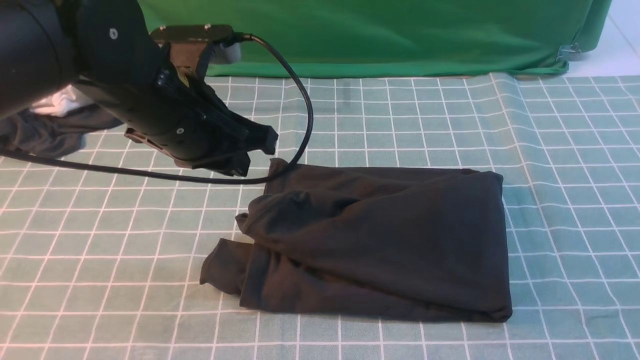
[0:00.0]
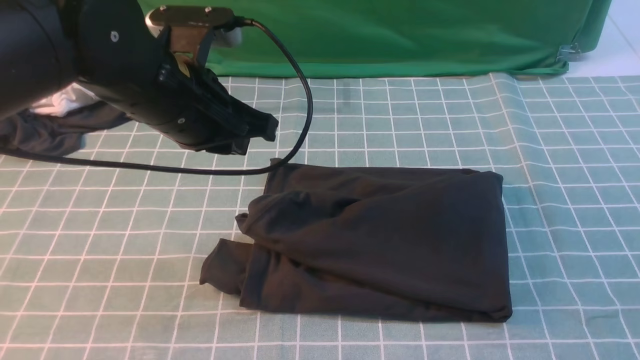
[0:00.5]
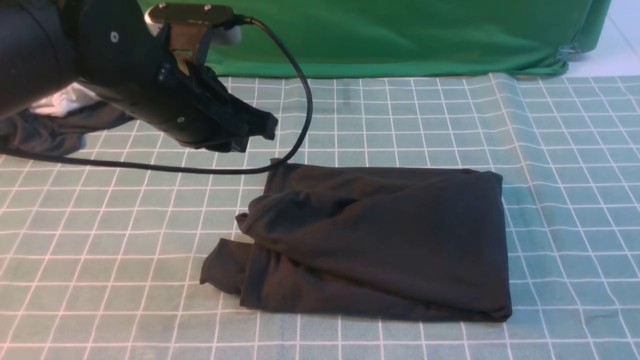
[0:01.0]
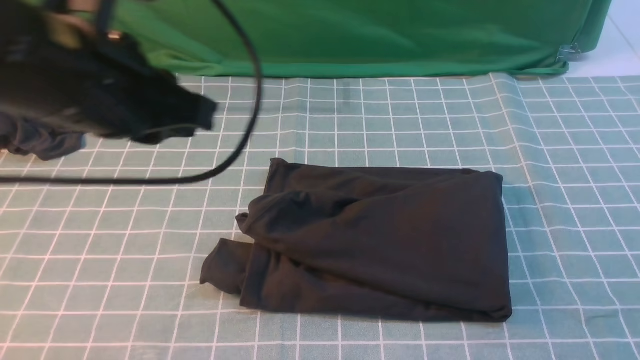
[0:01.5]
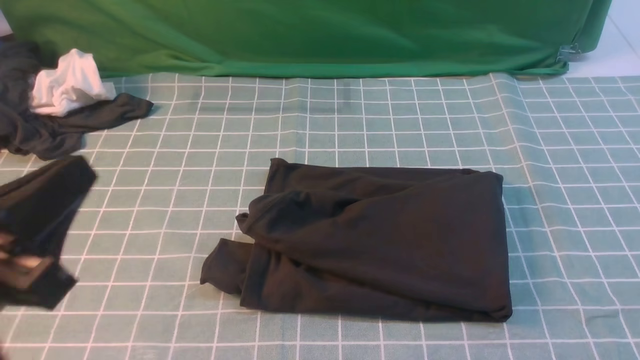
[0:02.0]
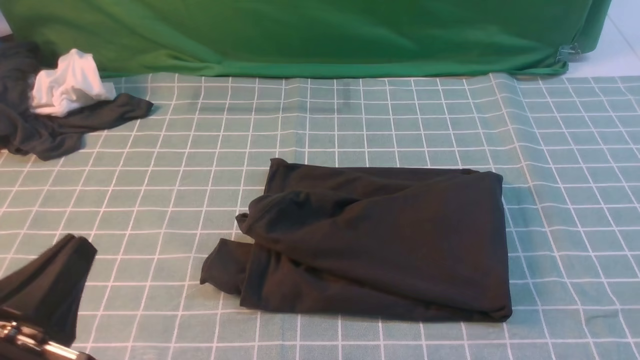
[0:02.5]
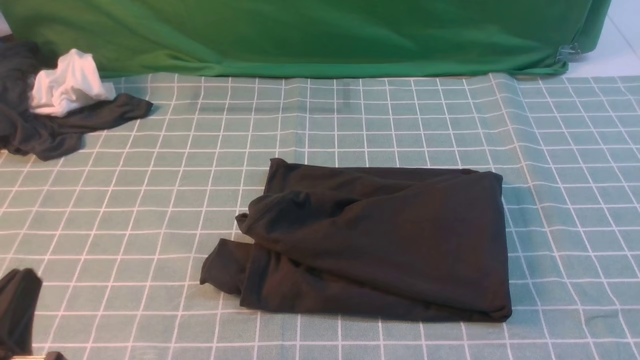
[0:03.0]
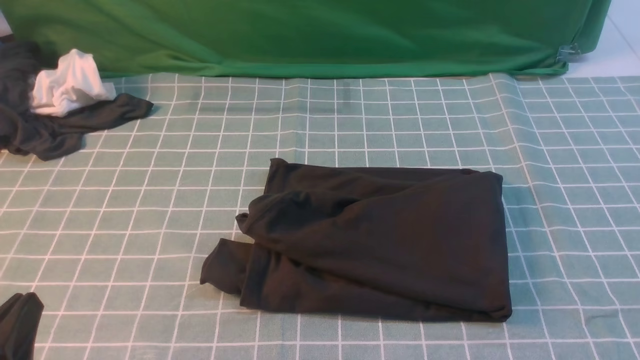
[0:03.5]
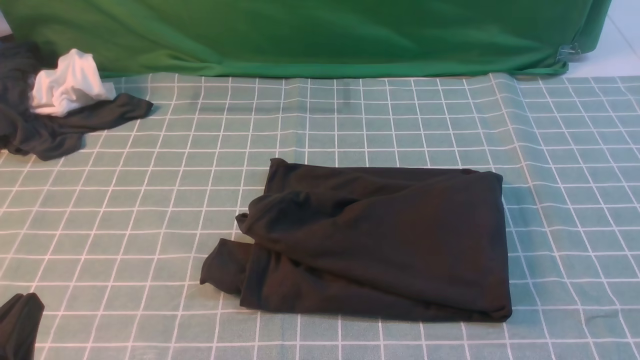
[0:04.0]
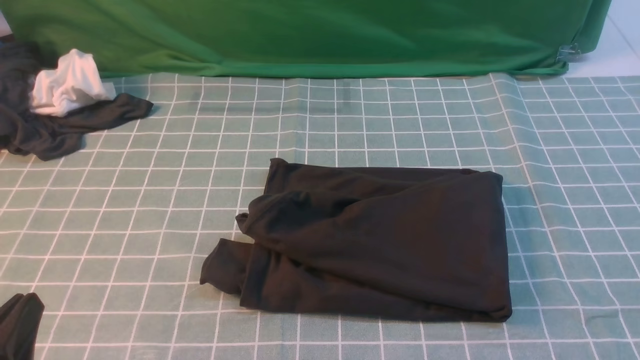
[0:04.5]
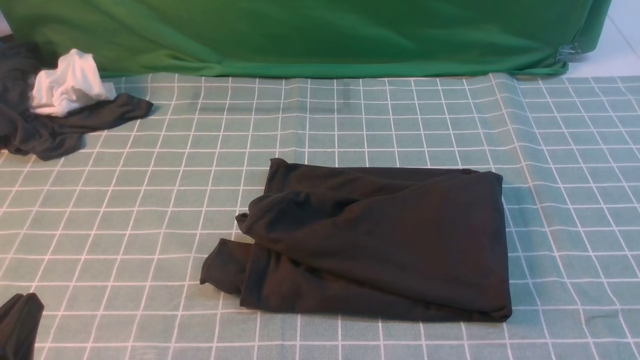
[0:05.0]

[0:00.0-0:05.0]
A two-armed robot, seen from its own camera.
0:00.0 to 0:02.5: The left gripper travels backward and to the left by about 25 cm. The right gripper shifts roughly 10 cm downward.

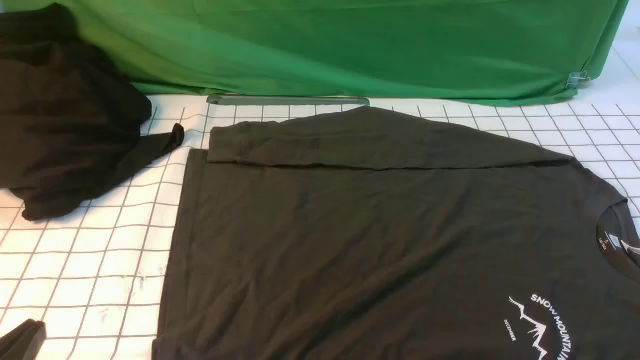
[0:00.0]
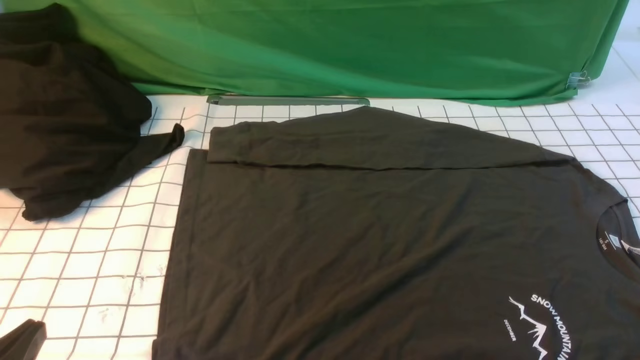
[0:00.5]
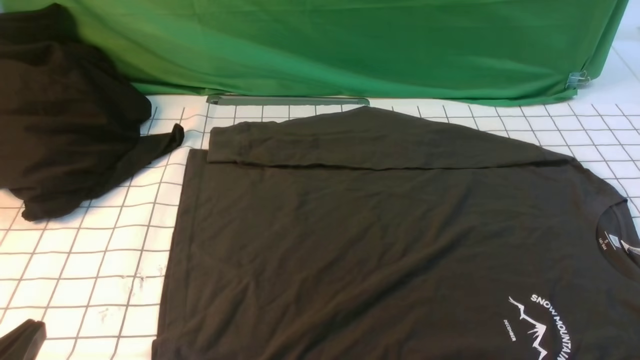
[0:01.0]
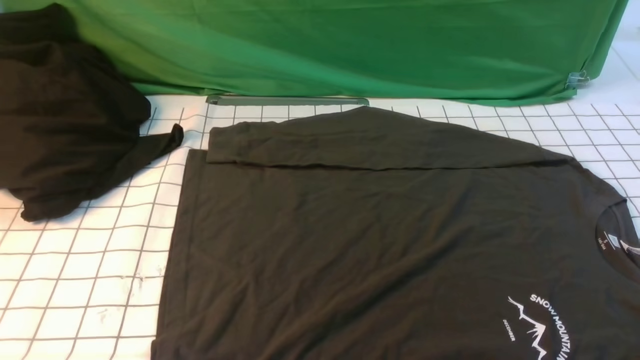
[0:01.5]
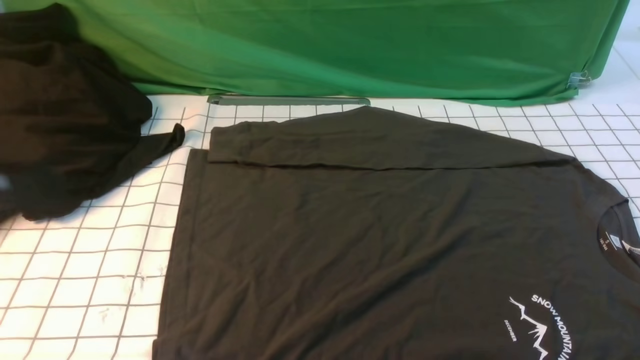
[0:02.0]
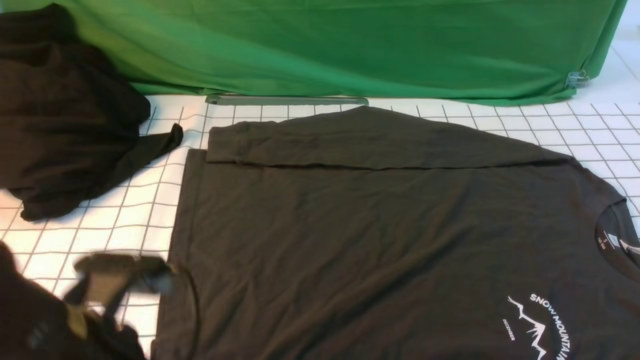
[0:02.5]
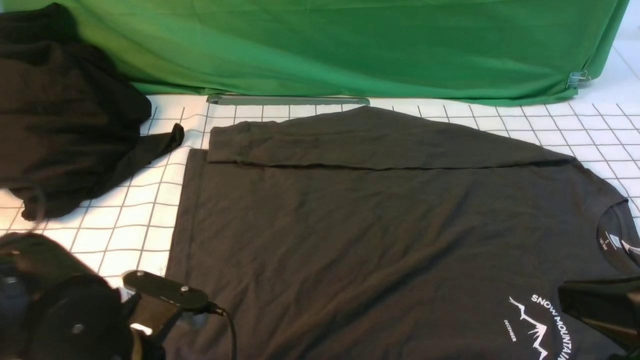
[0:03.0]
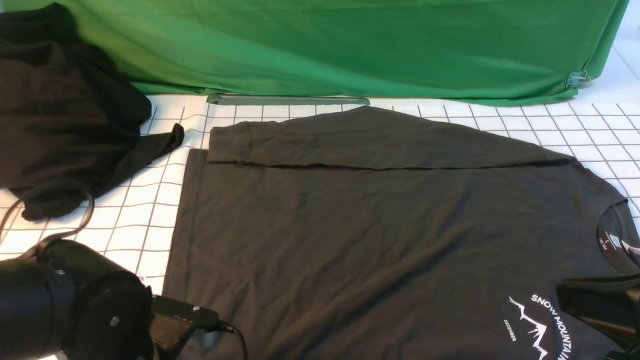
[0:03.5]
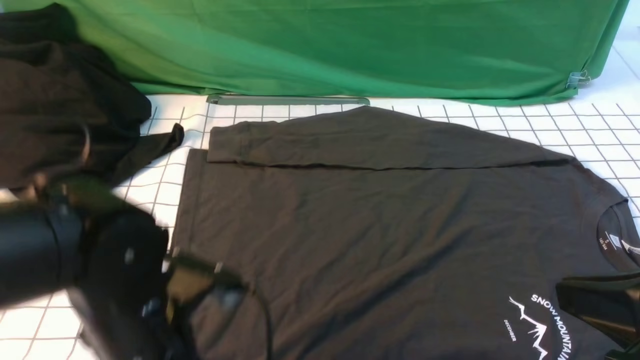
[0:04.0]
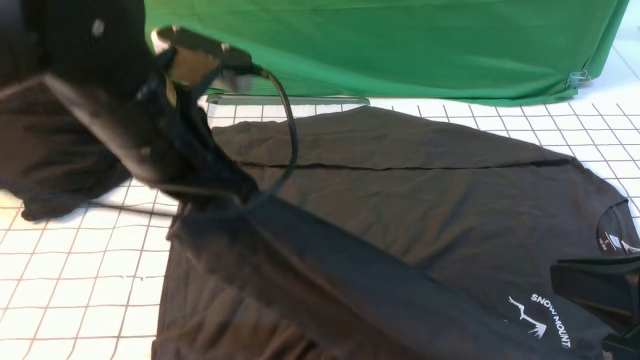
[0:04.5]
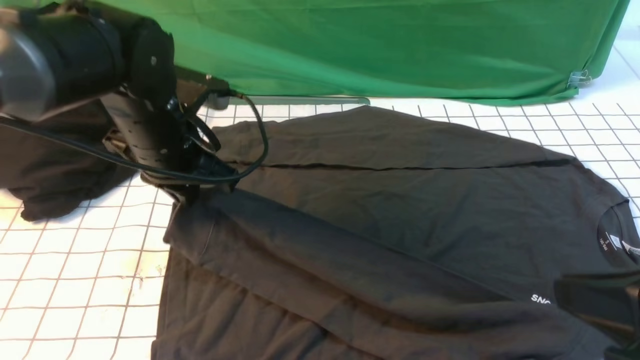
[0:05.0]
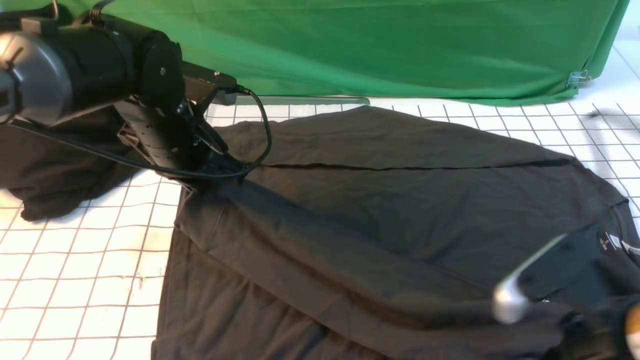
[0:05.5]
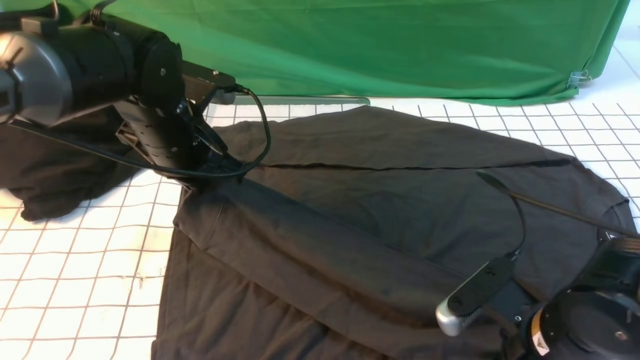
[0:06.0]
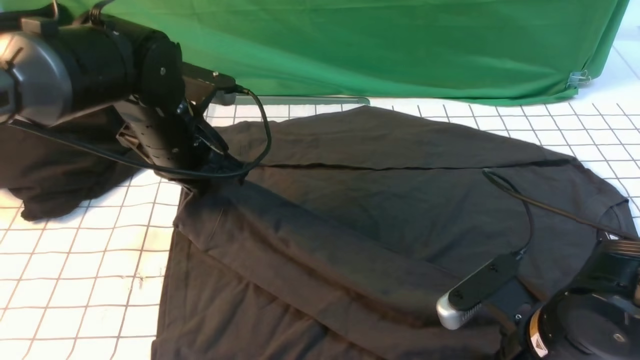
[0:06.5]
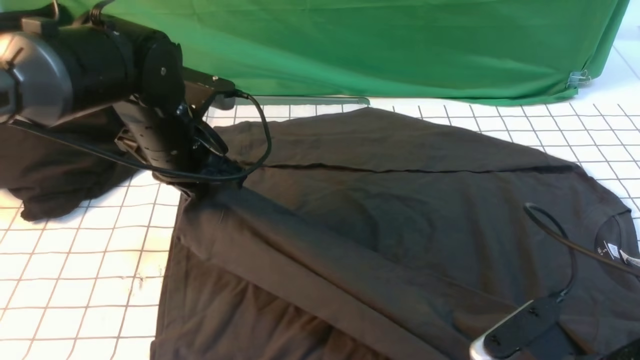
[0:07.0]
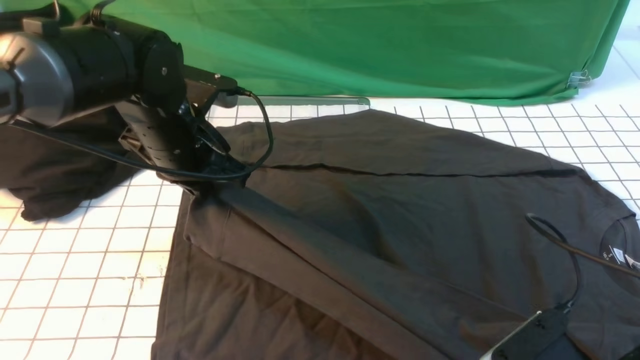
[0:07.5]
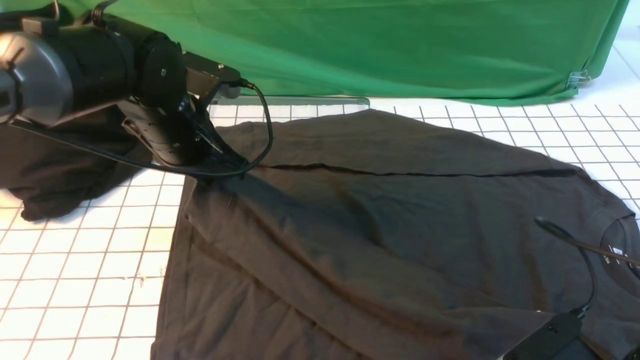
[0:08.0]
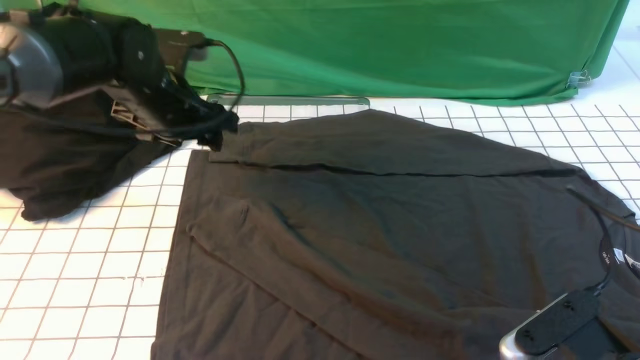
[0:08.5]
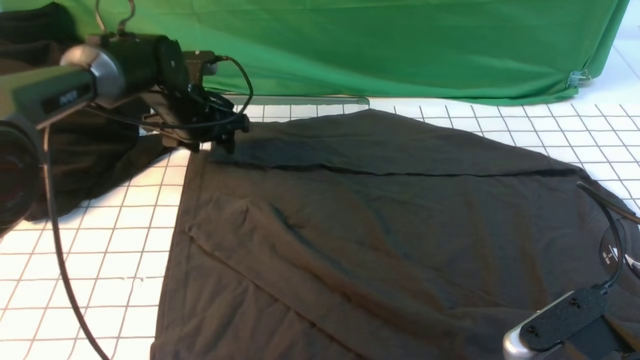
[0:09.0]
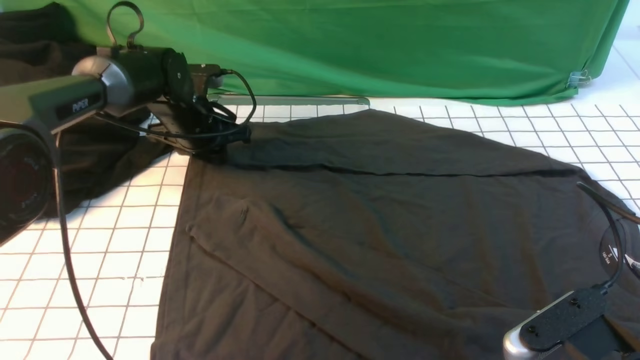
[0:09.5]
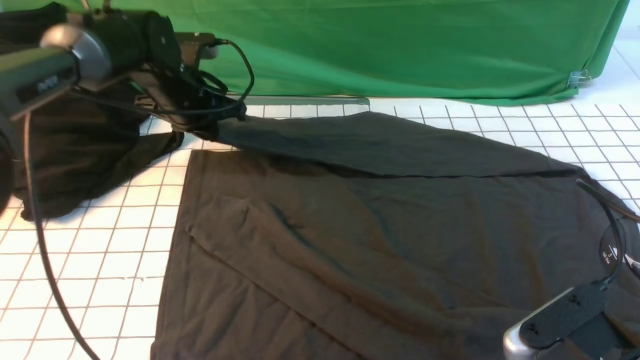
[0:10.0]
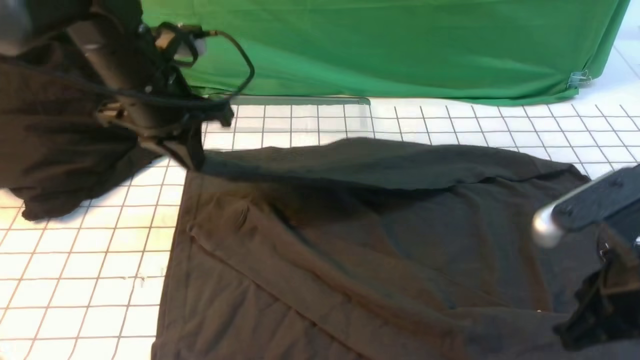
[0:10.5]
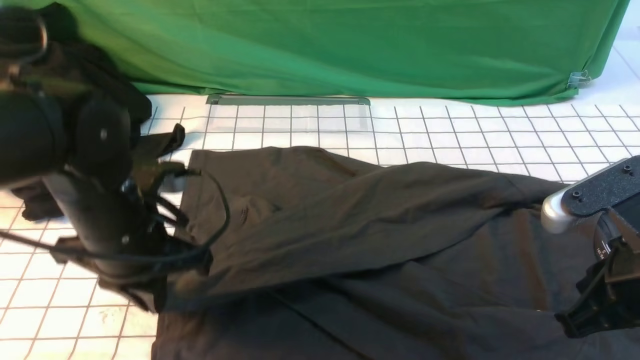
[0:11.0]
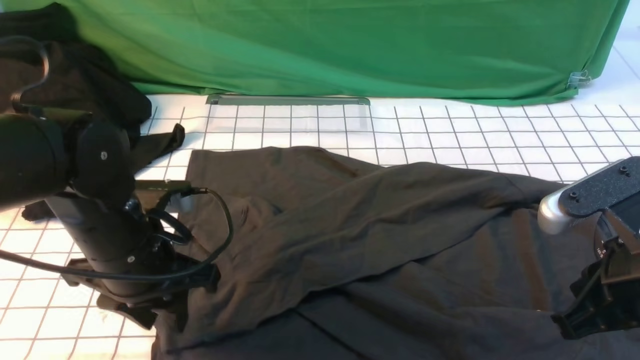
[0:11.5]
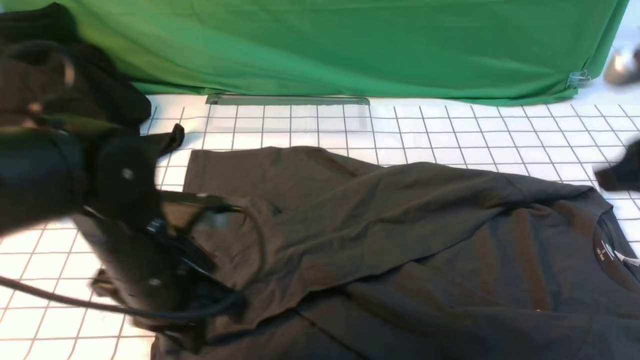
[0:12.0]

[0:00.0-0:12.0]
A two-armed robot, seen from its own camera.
Step, 0:00.0 to 0:04.0: use the left arm to clamp the cuff closest to it.
Step, 0:04.5 to 0:08.0: use the left arm to drag and place the cuff at the centered position on the left edge of the fabric.
Step, 0:08.5 to 0:09.5: use the left arm to clamp the cuff farthest from it.
Step, 0:10.0 to 0:11.5: use the left arm to drag and drop the cuff onto the cuff closest to the left arm.
0:00.0 to 0:02.0: The left gripper moves upward, roughly 15 cm.
0:02.0 to 0:04.0: The right gripper travels to the left, upward and forward by approximately 15 cm, and closes its fingers, while the left gripper is displaced downward, to the right and forward by some 20 cm, and opens and closes again.
0:04.0 to 0:06.0: The right gripper shifts some 15 cm downward and forward, and opens; the left gripper is displaced forward by about 20 cm.
0:06.0 to 0:08.0: The left gripper opens its fingers; the right gripper travels backward by roughly 5 cm, and closes and opens again.
0:08.0 to 0:10.0: The left gripper shifts about 10 cm forward, and closes.
0:10.0 to 0:12.0: The left gripper goes roughly 25 cm backward. Meanwhile the right gripper shifts about 20 cm forward and upward, and closes its fingers.

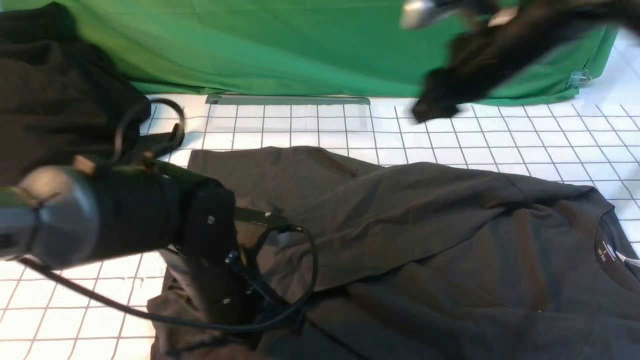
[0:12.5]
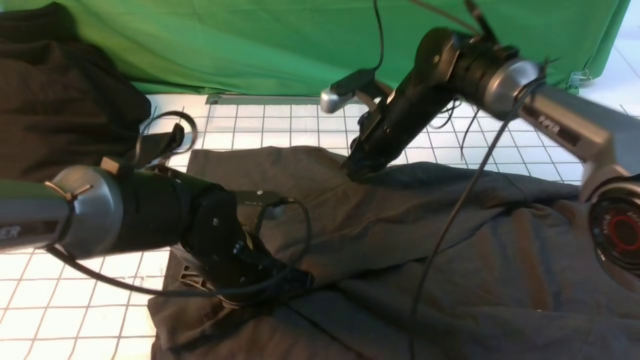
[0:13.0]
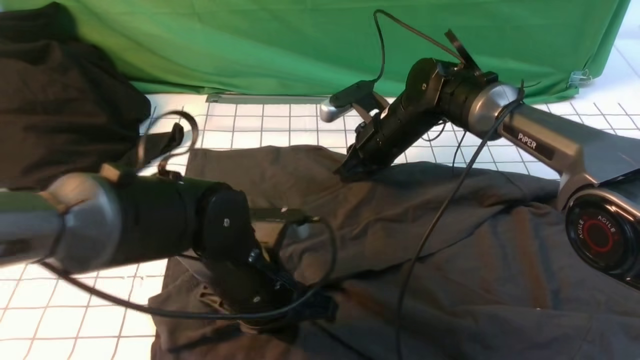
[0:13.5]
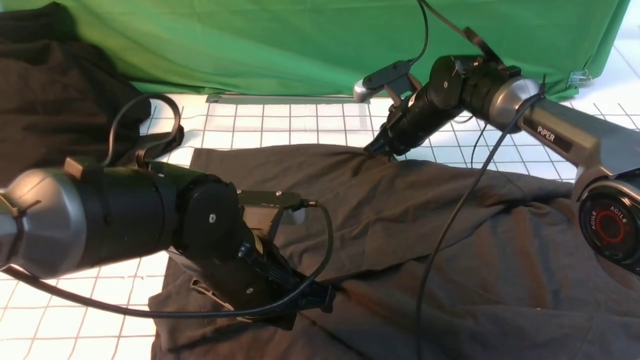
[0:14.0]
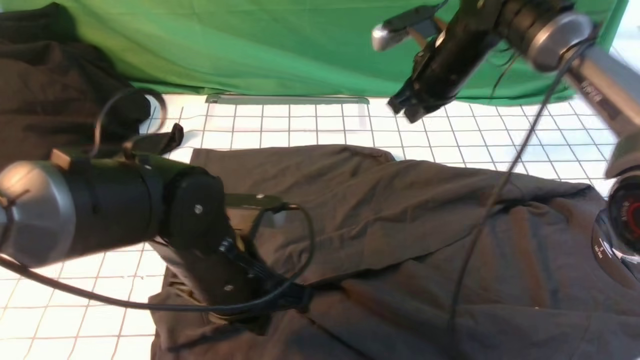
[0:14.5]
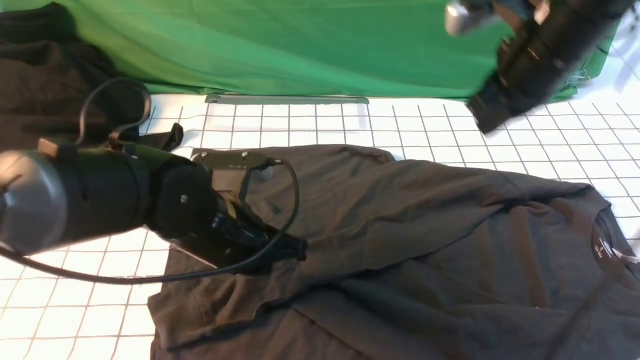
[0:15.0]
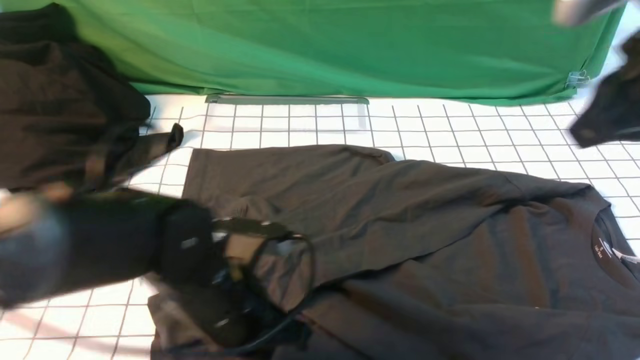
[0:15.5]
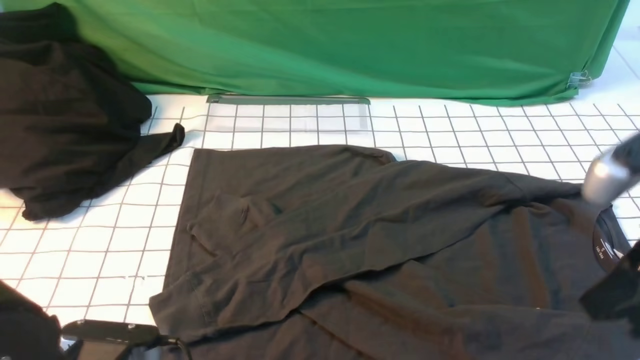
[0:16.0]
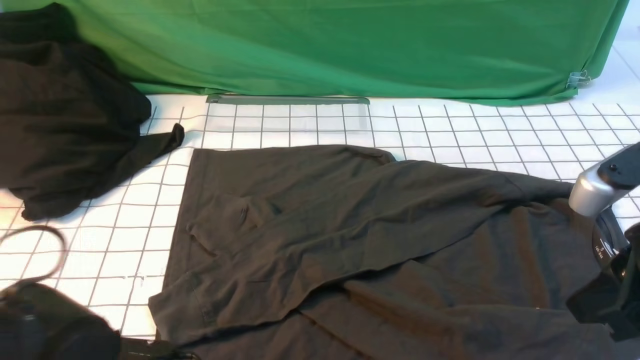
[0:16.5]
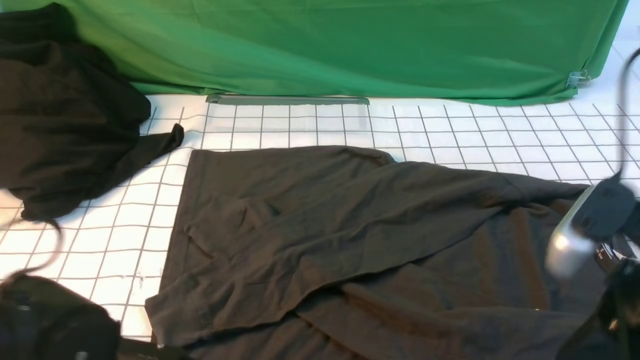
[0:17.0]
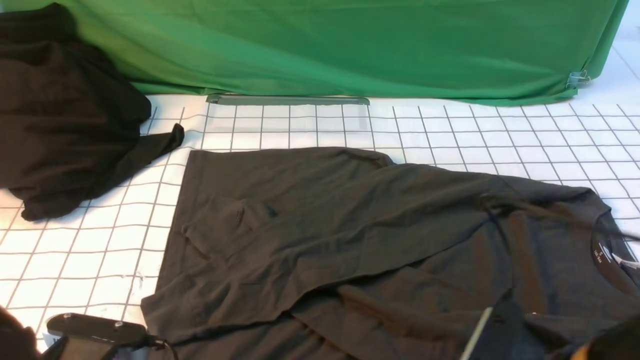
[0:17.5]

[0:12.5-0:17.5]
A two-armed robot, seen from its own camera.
0:12.5 to 0:15.0: The right gripper moves some 15 cm downward and comes back, and closes its fingers.
0:15.0 to 0:17.5: The right gripper goes some 30 cm backward and downward, and opens, while the left gripper is displaced backward and to the left by some 20 cm, and opens, then closes once more.
